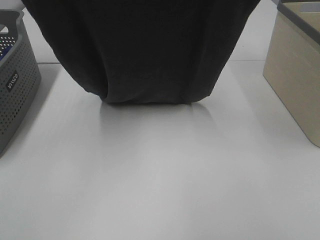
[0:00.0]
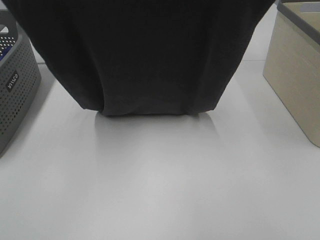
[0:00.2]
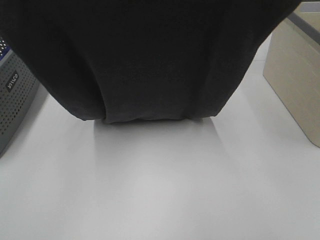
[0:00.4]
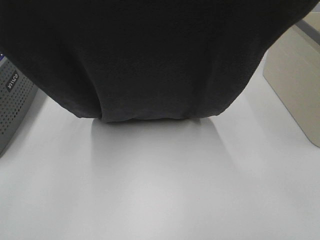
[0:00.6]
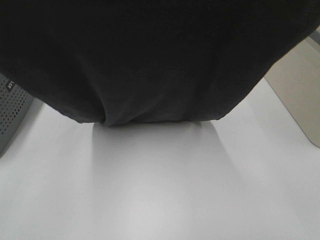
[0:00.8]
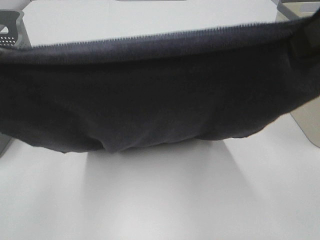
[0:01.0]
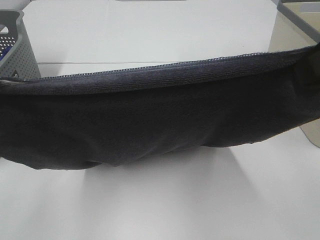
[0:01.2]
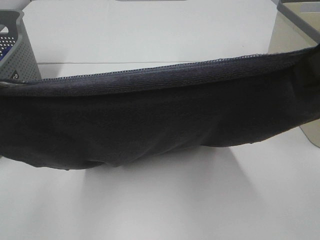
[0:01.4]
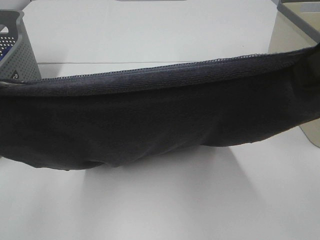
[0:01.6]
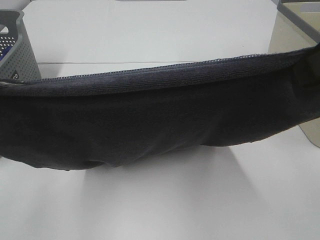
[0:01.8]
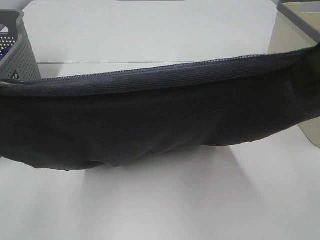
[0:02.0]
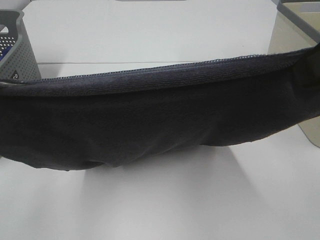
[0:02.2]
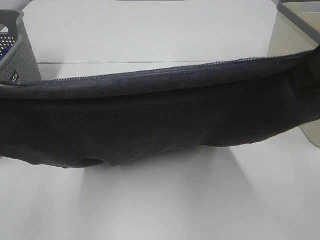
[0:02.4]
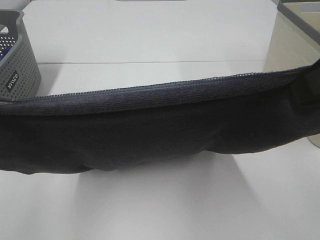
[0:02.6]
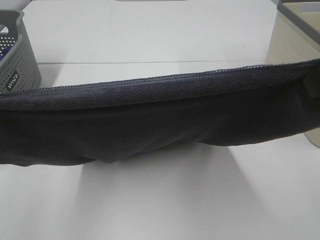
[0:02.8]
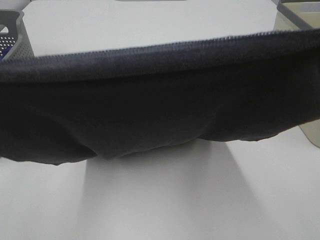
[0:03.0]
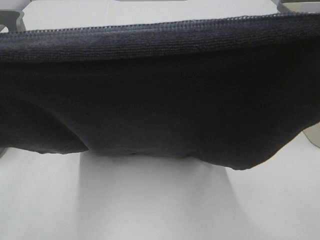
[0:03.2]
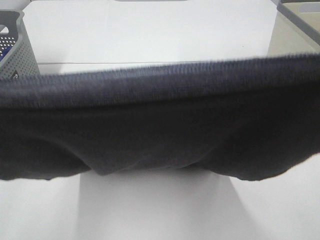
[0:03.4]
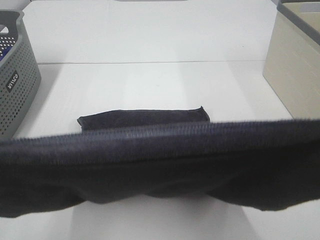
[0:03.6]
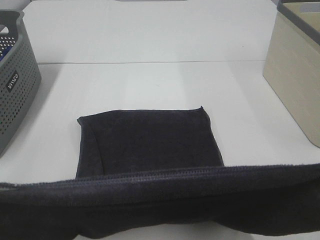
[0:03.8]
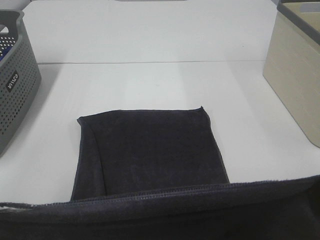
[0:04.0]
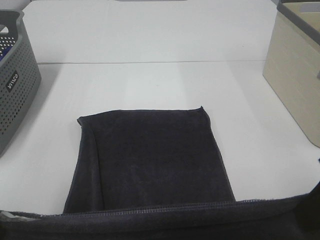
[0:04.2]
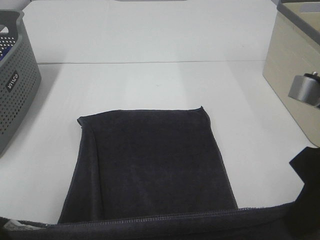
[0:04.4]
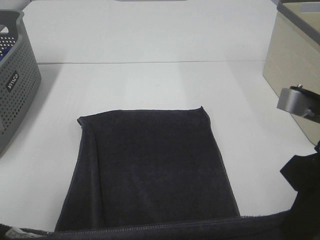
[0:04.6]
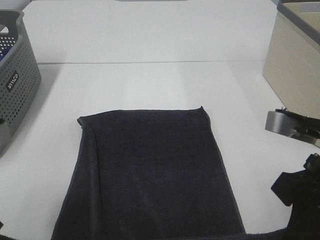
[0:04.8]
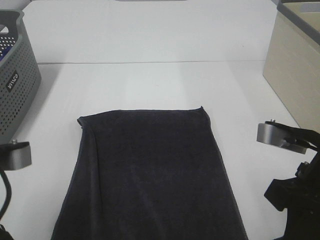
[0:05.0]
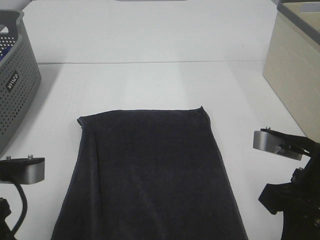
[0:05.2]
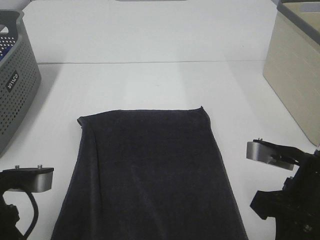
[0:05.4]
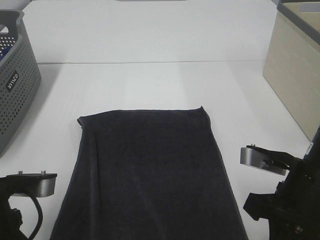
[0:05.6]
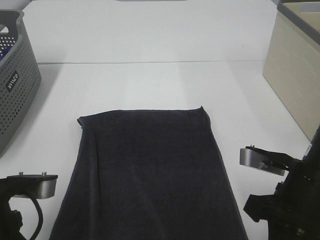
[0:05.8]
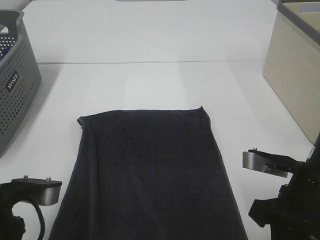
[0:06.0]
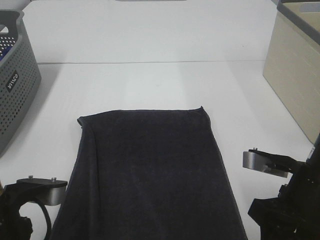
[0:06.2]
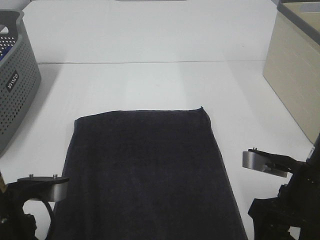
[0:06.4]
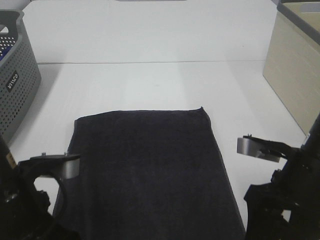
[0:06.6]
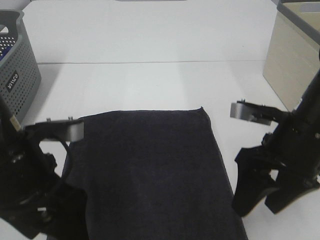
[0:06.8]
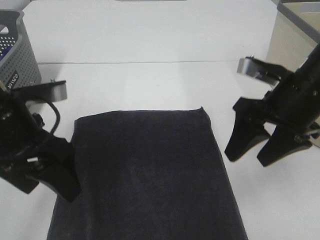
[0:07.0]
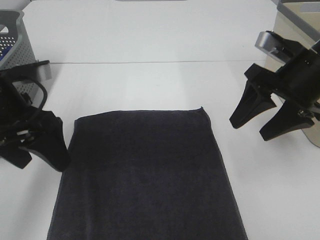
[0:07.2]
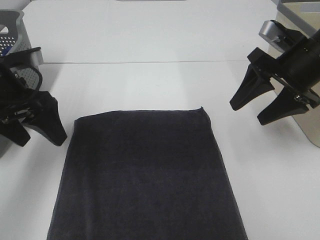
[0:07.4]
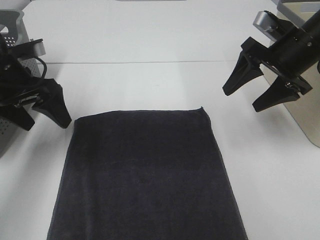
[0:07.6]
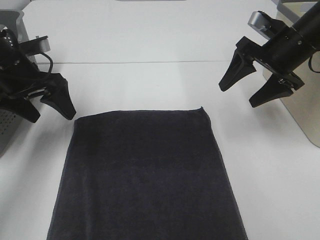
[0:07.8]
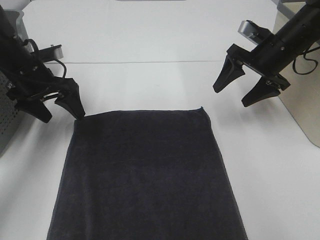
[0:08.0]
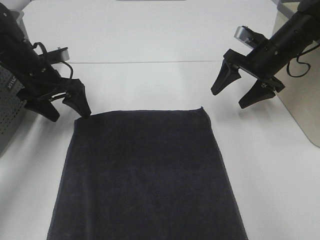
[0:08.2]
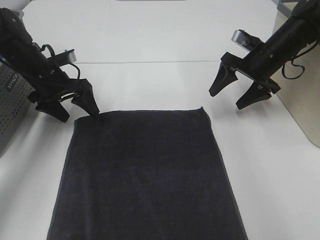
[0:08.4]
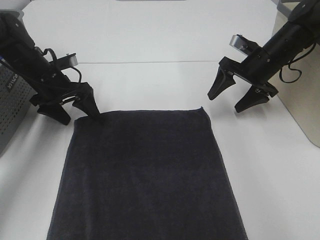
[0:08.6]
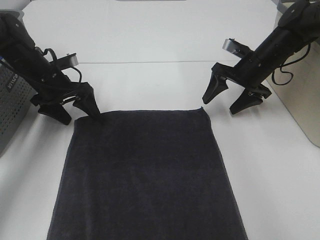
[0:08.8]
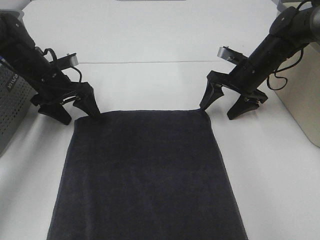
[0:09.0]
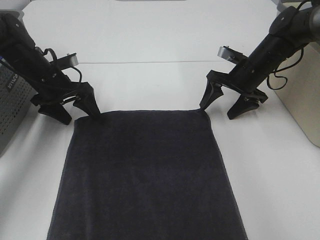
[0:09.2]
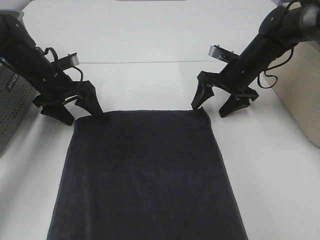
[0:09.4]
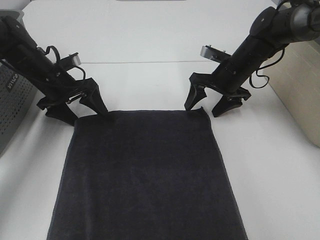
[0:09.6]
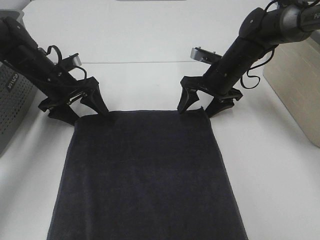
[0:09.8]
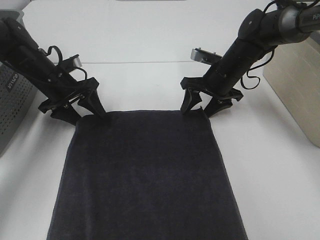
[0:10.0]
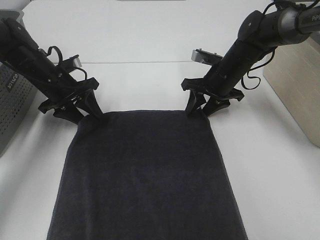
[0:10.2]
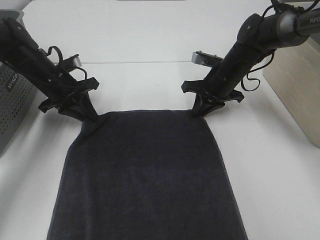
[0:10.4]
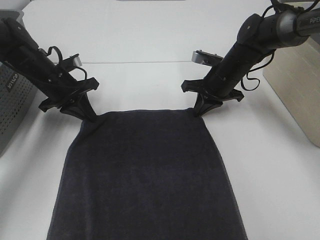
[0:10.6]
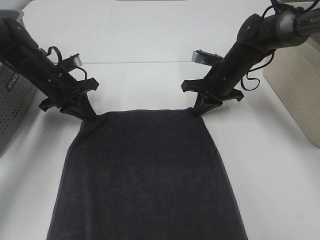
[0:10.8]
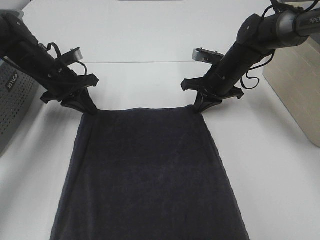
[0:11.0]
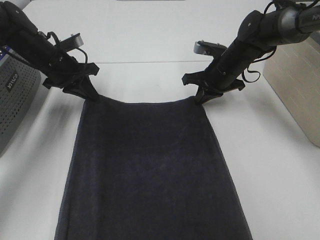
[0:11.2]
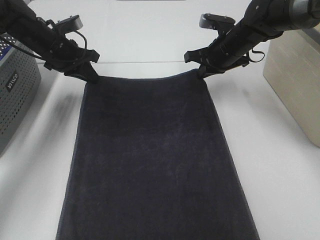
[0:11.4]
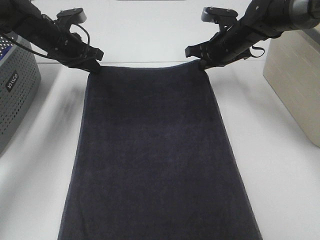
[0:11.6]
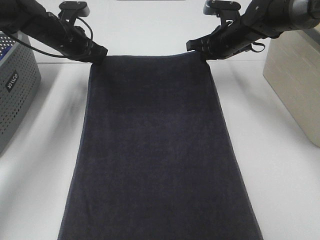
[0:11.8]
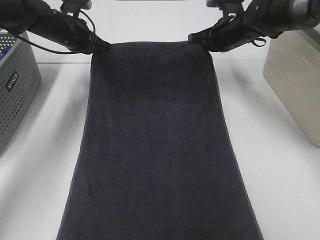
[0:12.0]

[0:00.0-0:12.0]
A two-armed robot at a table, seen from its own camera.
Task of the whole recording: Remove the towel and place it.
Step, 0:01.2 to 0:09.2: Left hand:adjust the gray towel.
Step, 0:01.2 to 0:09.2: Right hand:adjust the gray towel.
0:00.0 to 0:01.6: The two grippers go approximately 15 cm backward and downward.
0:01.6 to 0:03.0: The left gripper shifts by roughly 5 cm.
0:03.0 to 0:04.4: The two grippers go roughly 15 cm downward.
0:04.4 to 0:06.0: The two grippers go roughly 10 cm downward.
0:06.0 to 0:07.6: The two grippers go some 20 cm forward. The left gripper opens its fingers. Meanwhile the right gripper opens.
0:07.6 to 0:09.0: The right gripper shifts some 15 cm downward and forward. The left gripper moves forward and downward, approximately 15 cm.
0:09.0 to 0:10.4: The right gripper heads to the left, covering some 5 cm, and closes its fingers, while the left gripper closes up.
0:10.4 to 0:12.0: The left gripper shifts about 10 cm forward and upward, while the right gripper moves upward and forward, roughly 10 cm.

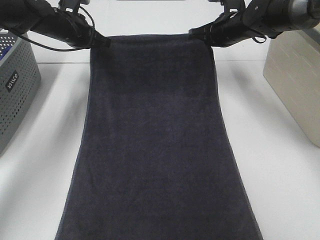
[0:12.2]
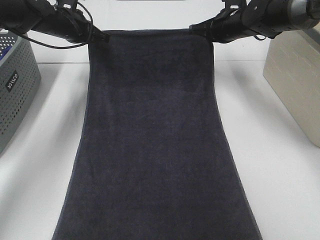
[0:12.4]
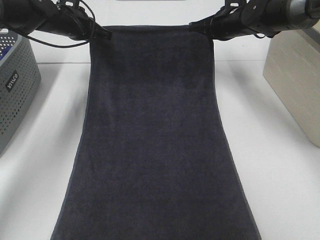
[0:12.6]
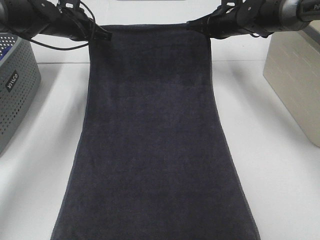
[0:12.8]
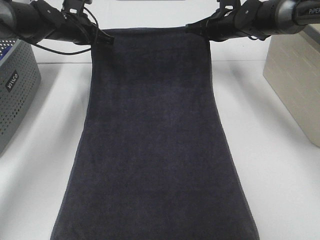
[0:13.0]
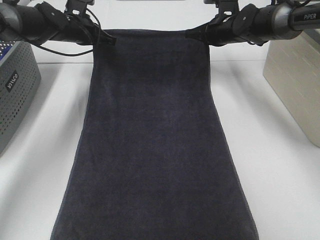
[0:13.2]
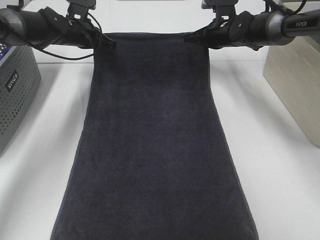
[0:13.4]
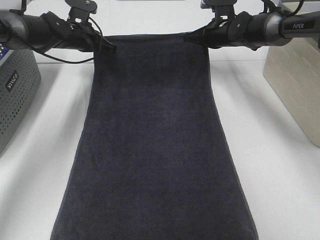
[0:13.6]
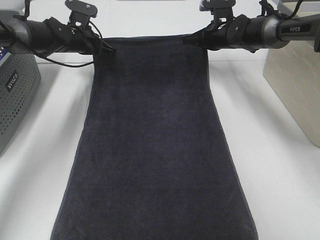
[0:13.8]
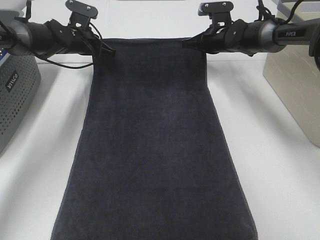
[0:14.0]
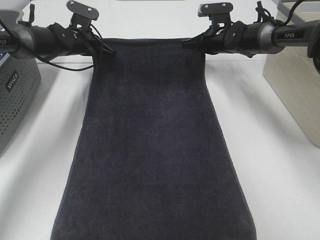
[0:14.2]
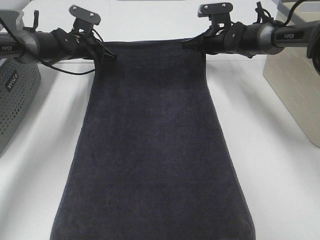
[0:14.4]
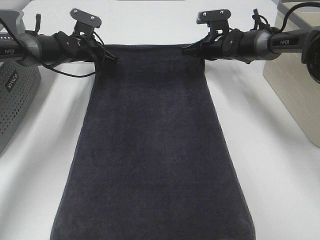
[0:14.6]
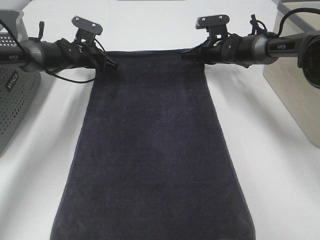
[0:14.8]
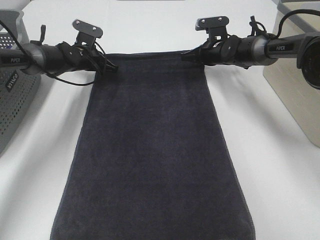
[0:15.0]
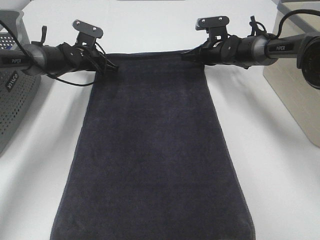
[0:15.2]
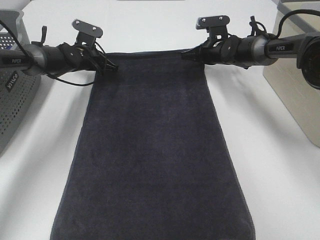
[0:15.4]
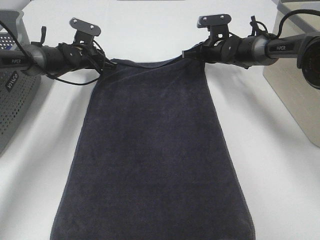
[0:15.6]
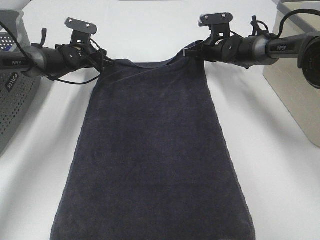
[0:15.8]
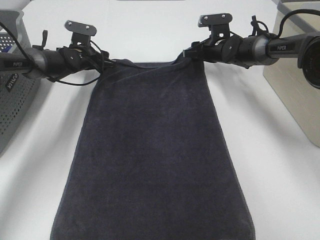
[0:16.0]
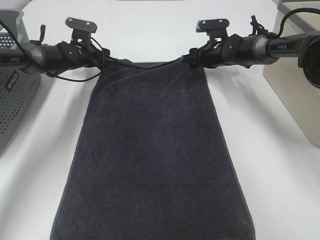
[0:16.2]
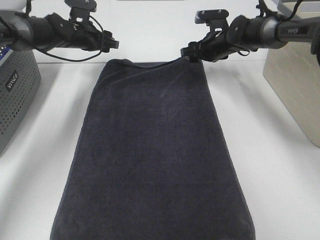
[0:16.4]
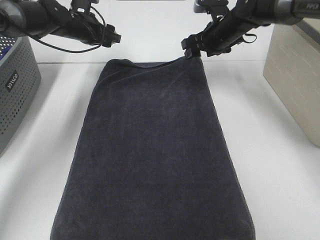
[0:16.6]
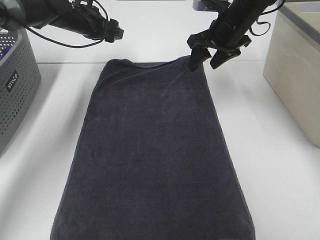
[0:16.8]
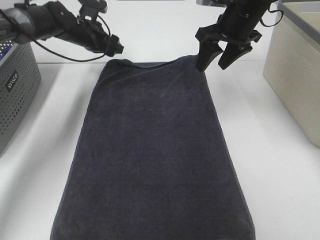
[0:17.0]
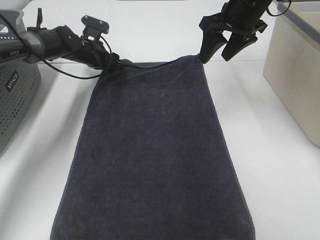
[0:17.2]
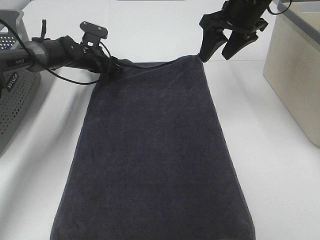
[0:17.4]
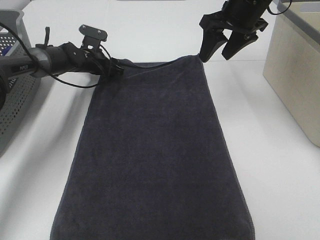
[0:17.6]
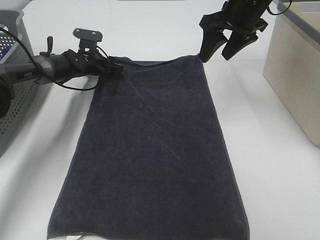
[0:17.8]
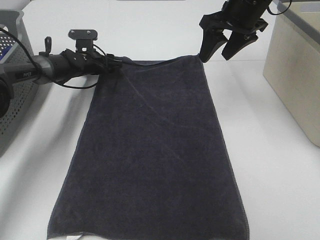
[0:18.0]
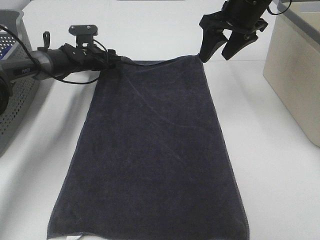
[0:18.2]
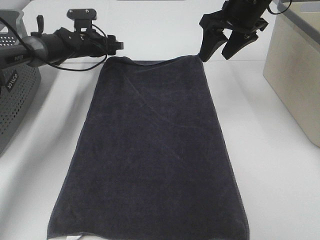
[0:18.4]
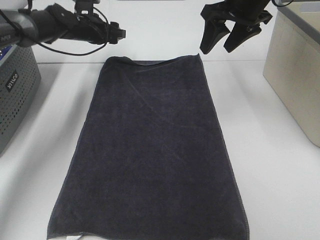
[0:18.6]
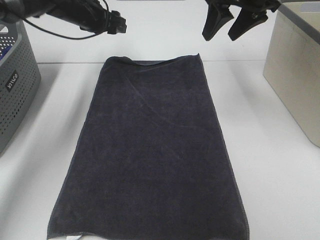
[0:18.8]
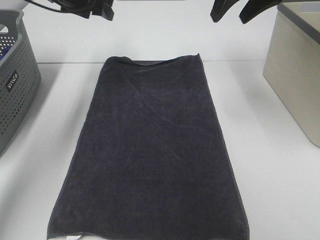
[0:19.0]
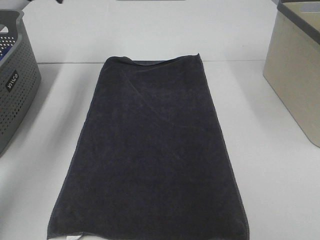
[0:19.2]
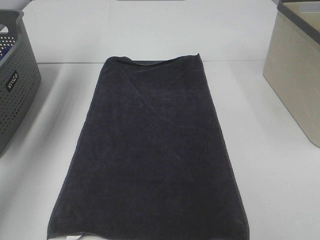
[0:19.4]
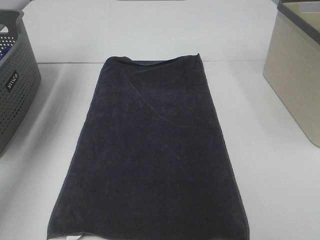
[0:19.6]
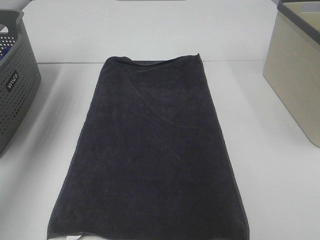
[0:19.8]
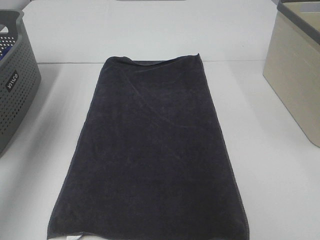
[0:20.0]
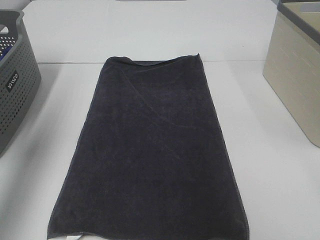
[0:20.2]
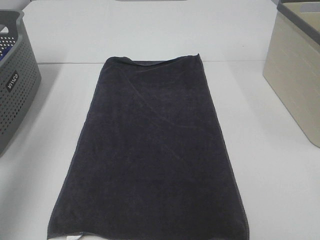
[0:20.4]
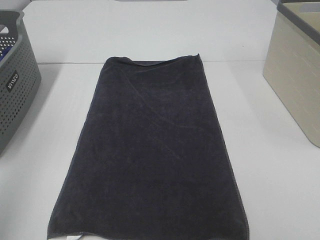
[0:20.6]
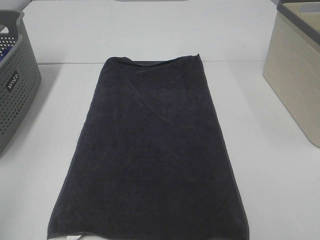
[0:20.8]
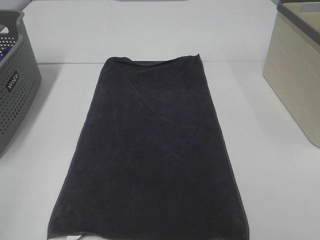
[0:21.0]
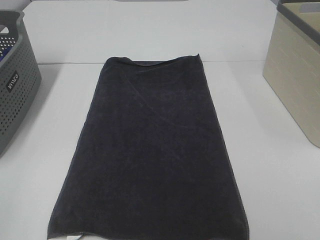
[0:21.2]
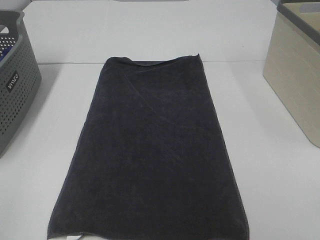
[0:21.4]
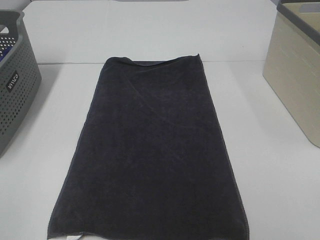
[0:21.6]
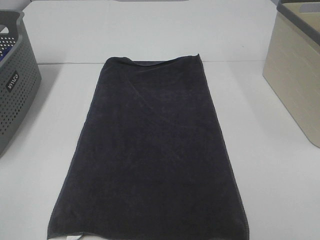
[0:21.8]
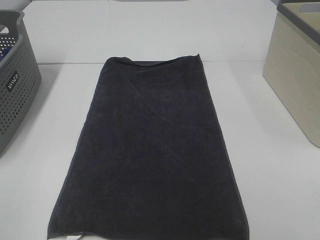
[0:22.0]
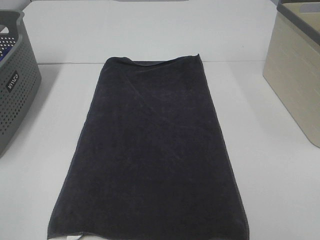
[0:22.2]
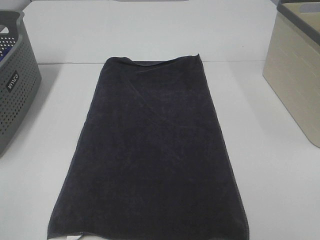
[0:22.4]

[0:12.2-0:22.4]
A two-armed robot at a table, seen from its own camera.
Task of the whole recording: Remove the towel and place it.
0:12.2 to 0:13.6: The left gripper shifts by about 5 cm; the right gripper shifts by roughly 5 cm.
0:13.6 to 0:15.2: Both grippers move downward, roughly 5 cm.
0:15.2 to 0:16.6: Both grippers move upward, about 10 cm. The left gripper opens, while the right gripper opens up.
0:16.6 to 0:18.0: The right gripper is displaced upward and backward by roughly 10 cm; the left gripper goes about 10 cm downward.
0:18.0 to 0:19.4: The left gripper travels upward by approximately 30 cm, while the right gripper moves upward, to the right and backward, roughly 20 cm.
0:19.4 to 0:21.0: The left gripper shifts about 50 cm backward.
